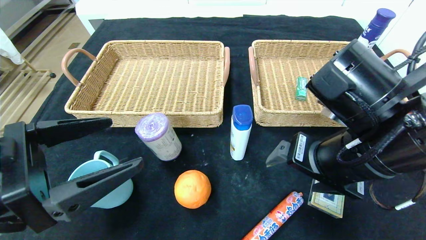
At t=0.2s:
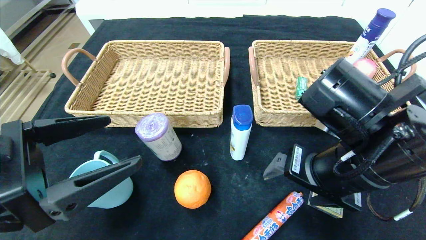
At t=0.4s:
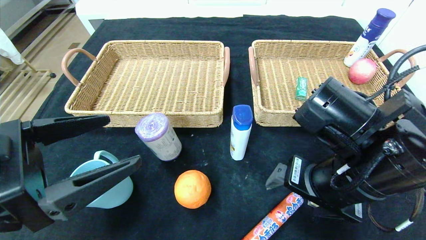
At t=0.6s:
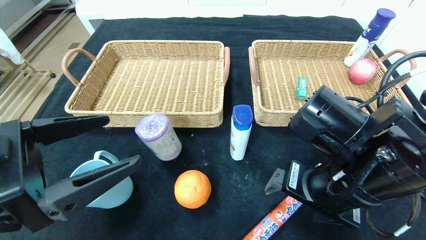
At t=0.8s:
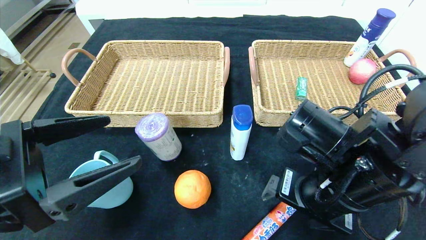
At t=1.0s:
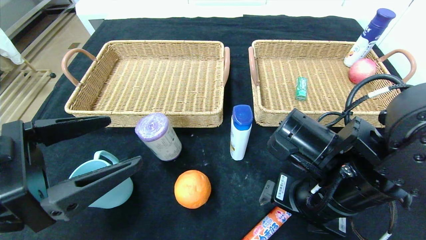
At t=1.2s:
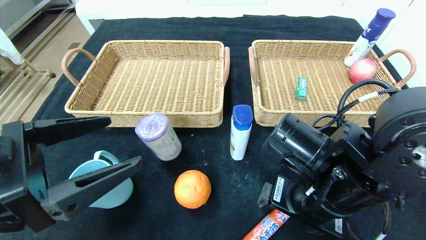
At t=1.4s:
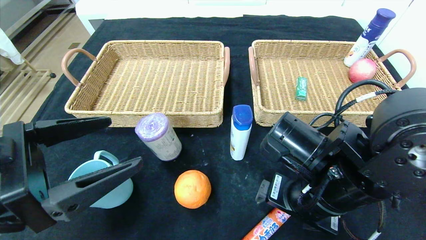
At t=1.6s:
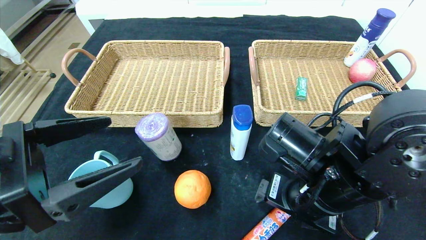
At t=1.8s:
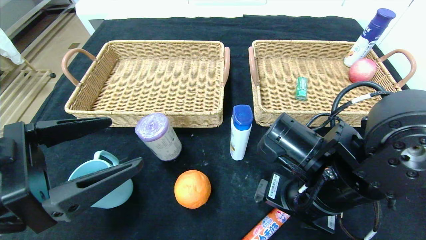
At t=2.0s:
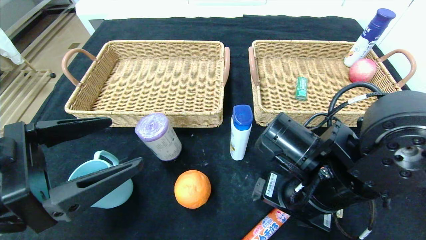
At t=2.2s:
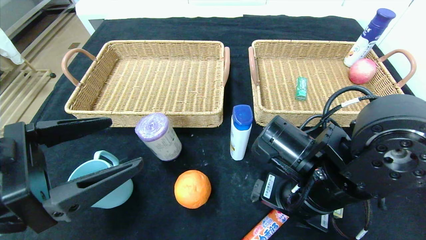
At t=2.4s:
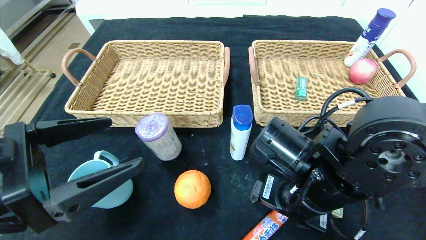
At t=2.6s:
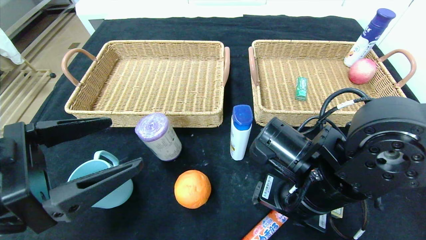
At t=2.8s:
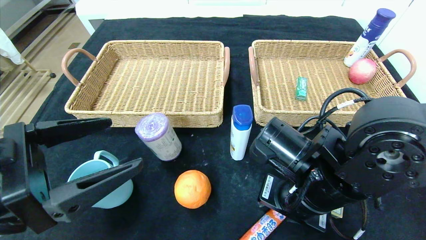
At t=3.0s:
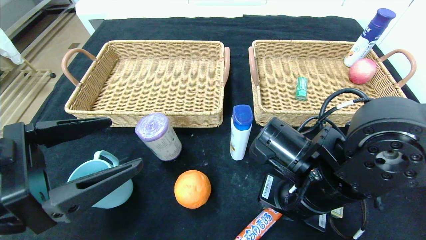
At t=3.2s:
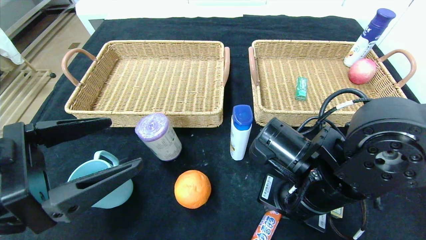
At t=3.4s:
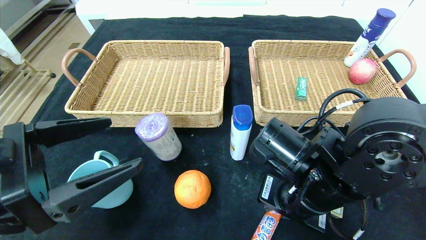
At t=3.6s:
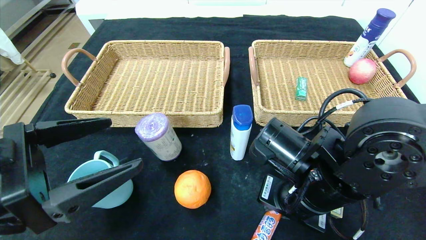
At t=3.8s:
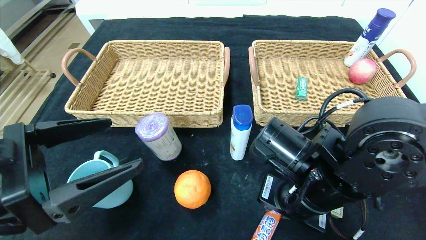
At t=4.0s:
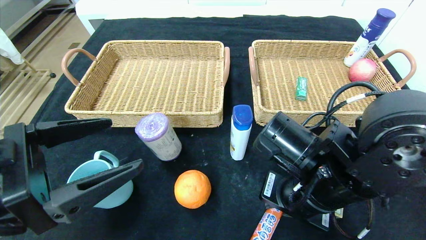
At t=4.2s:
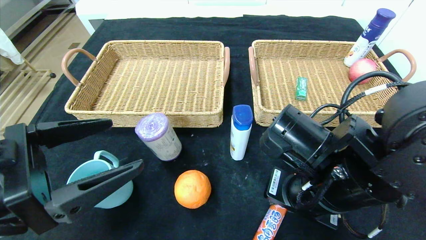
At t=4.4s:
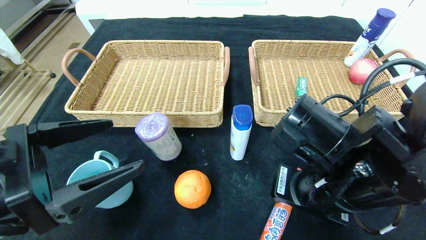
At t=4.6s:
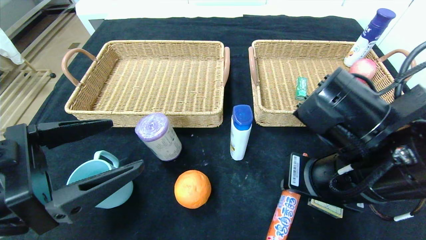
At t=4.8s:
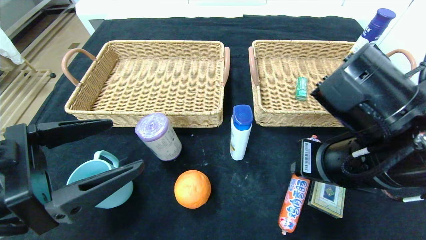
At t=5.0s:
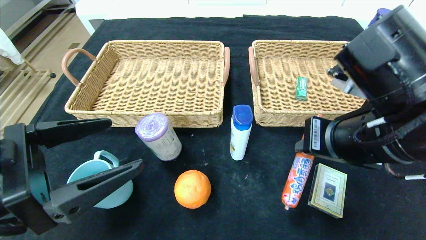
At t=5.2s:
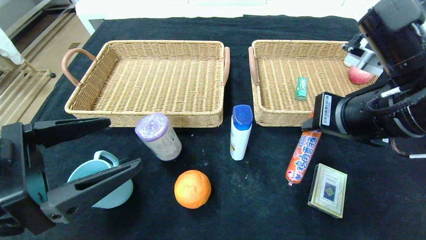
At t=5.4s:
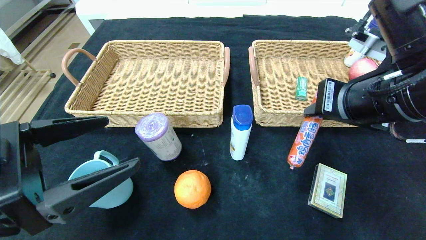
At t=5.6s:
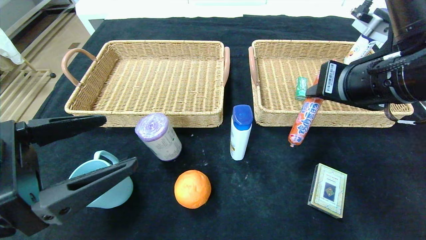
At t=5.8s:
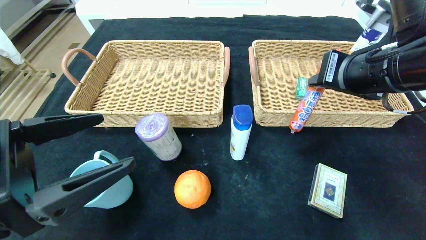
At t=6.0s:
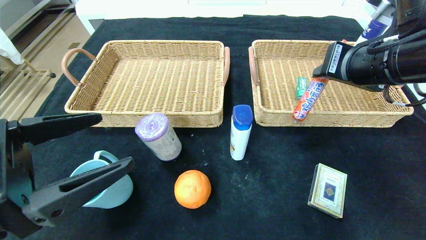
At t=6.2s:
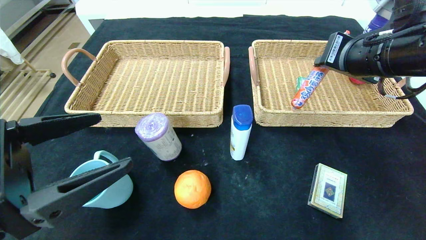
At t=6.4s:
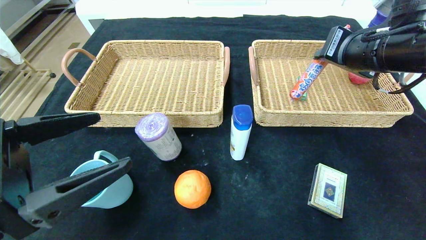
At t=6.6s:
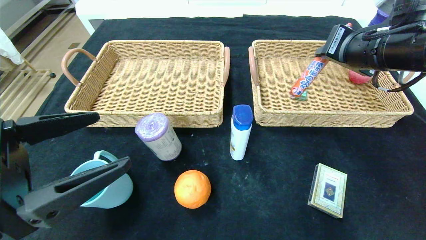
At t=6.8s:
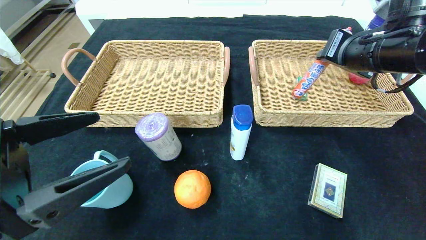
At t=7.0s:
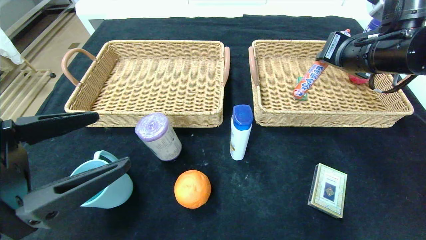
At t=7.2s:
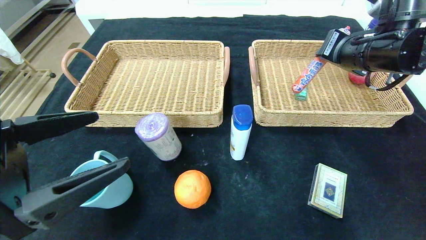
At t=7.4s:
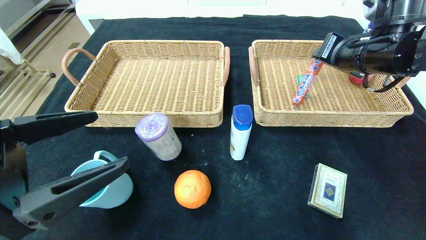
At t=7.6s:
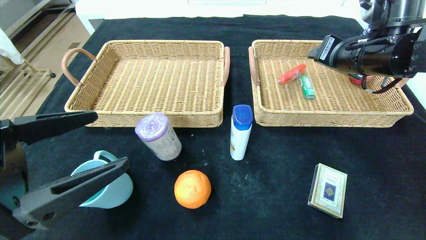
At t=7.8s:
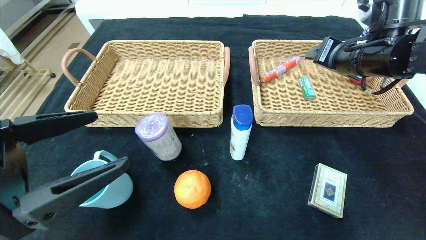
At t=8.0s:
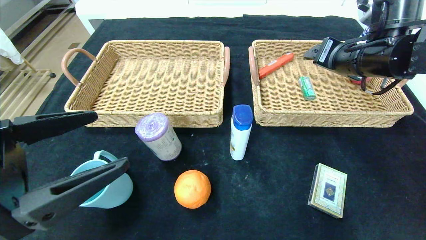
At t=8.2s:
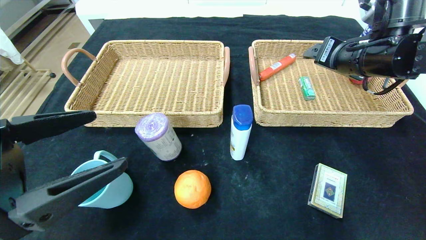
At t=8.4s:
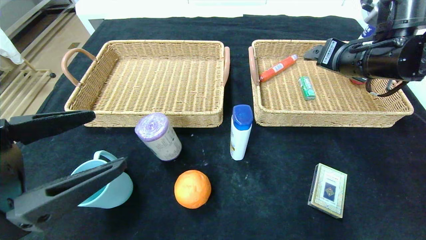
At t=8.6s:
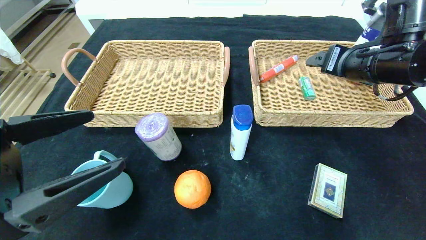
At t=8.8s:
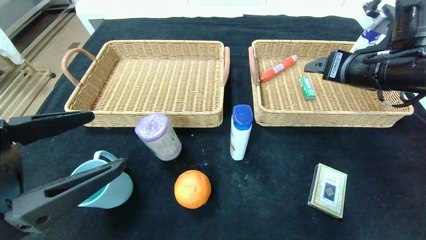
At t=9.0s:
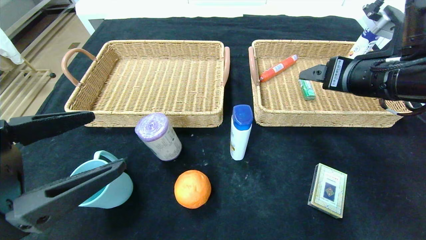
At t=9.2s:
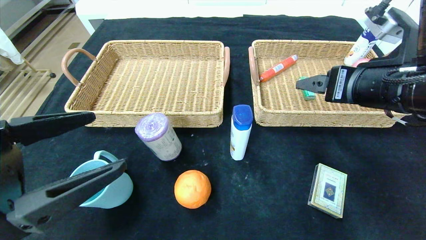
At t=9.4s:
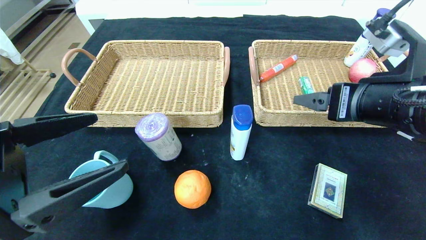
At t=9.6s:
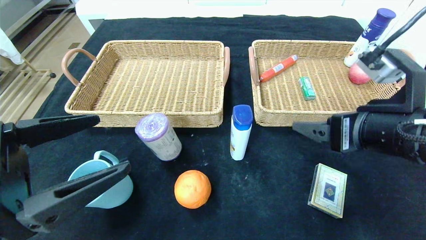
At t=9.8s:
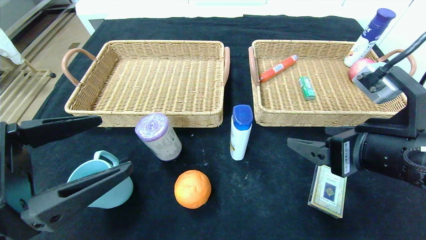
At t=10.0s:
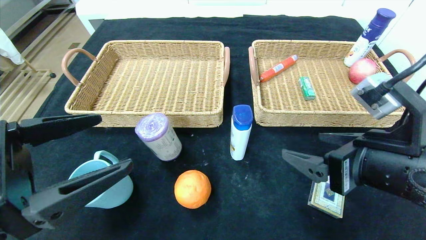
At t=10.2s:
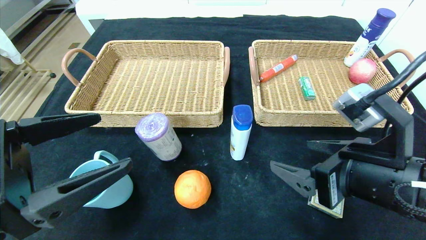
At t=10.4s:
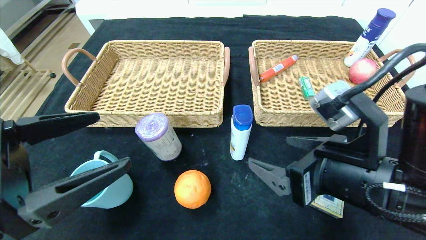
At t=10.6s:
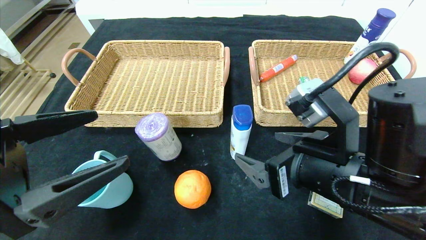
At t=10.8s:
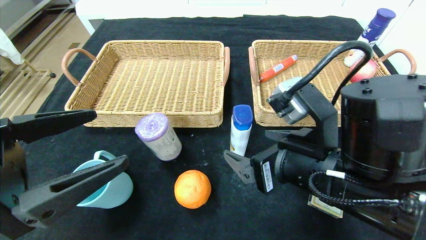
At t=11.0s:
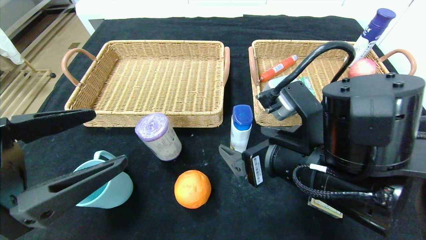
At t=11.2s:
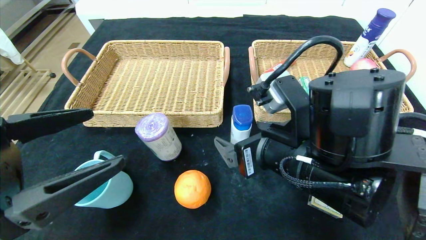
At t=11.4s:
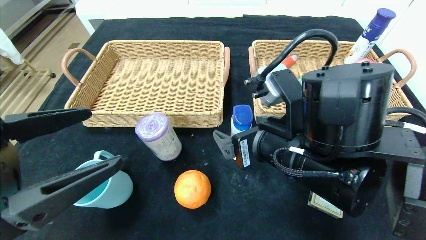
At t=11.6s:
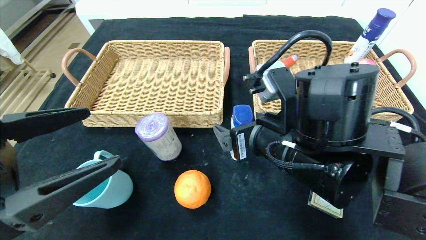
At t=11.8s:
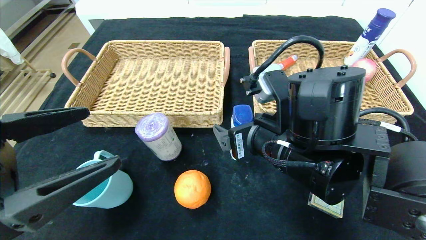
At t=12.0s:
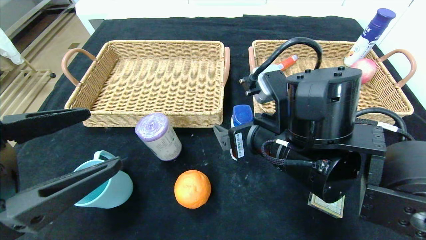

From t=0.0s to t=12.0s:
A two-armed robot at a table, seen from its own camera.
Step, from t=0.0s to t=7.8s: Grasp the sausage and put it in the right basket.
From t=0.0s to t=1.6s: The right gripper is displaced downward by approximately 5 cm.
From t=1.6s to t=3.0s: The right gripper closes its fingers.
From t=3.0s to t=4.4s: The right gripper changes place by about 5 cm.
From t=4.4s to t=6.0s: The right gripper travels upward, to the right and forward by about 15 cm.
From t=6.0s to t=7.6s: The right gripper goes some 10 cm forward, and opens its fingers.
From t=7.6s to t=9.0s: The right gripper goes some 10 cm backward, and opens.
From t=9.0s to t=10.4s: The right gripper travels backward, downward and to the left by roughly 15 cm.
From t=10.4s to t=12.0s: The right gripper moves to the left and forward, some 10 cm.

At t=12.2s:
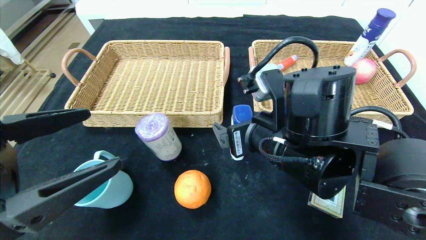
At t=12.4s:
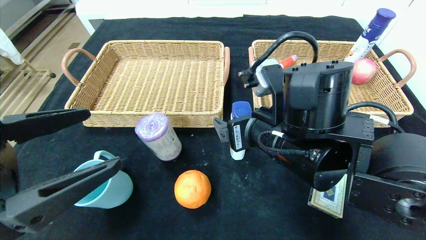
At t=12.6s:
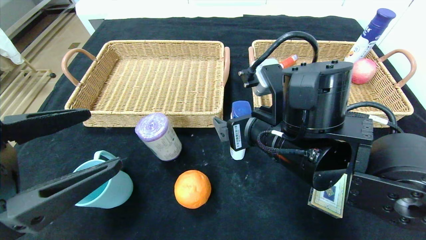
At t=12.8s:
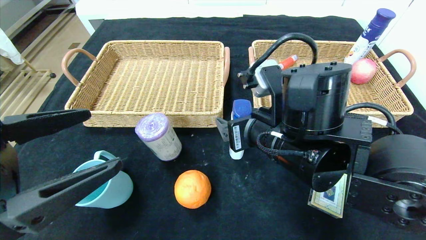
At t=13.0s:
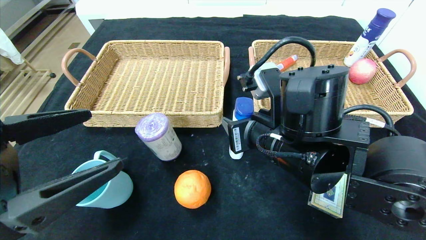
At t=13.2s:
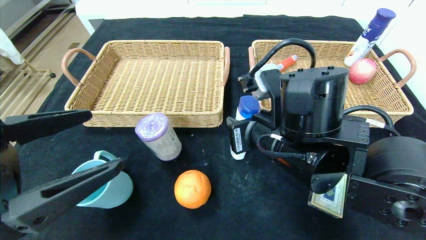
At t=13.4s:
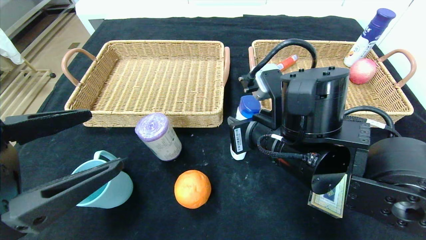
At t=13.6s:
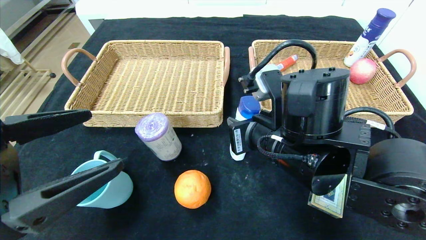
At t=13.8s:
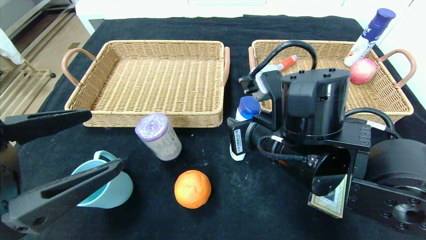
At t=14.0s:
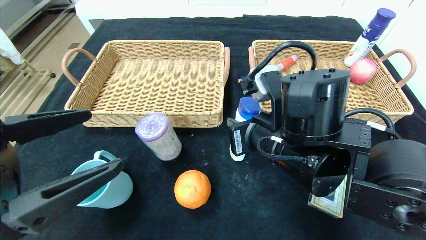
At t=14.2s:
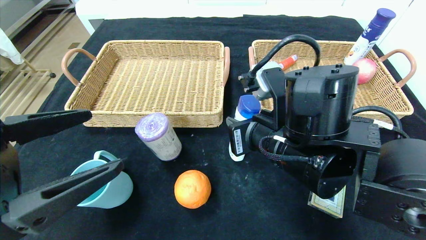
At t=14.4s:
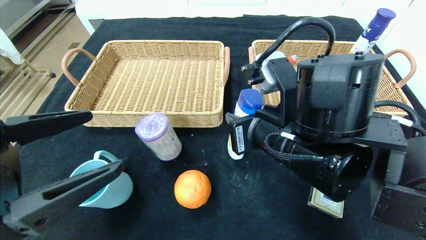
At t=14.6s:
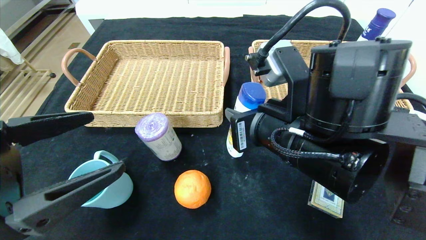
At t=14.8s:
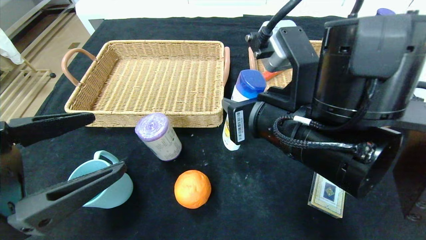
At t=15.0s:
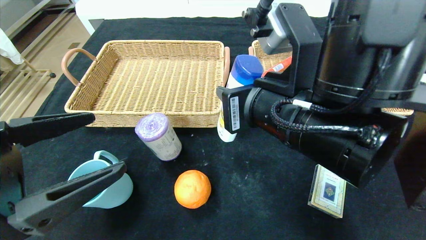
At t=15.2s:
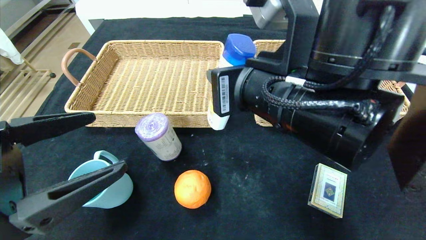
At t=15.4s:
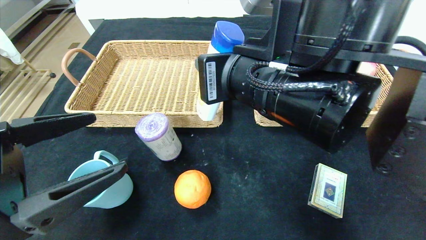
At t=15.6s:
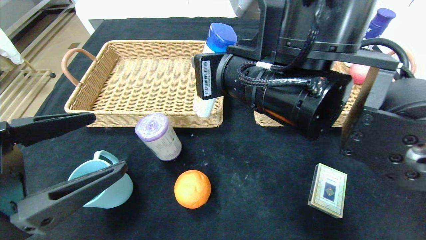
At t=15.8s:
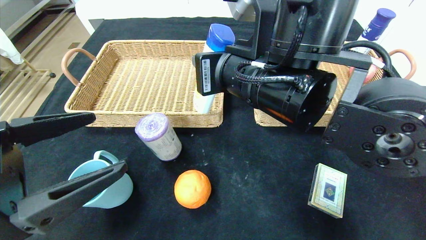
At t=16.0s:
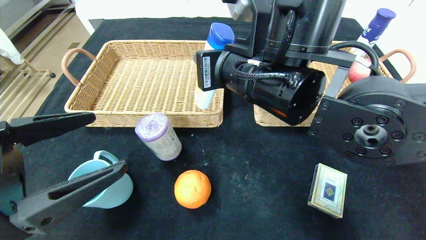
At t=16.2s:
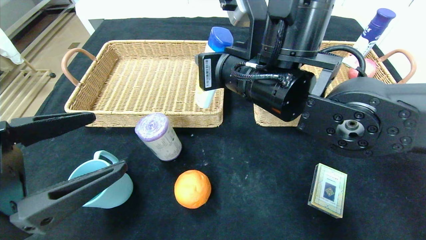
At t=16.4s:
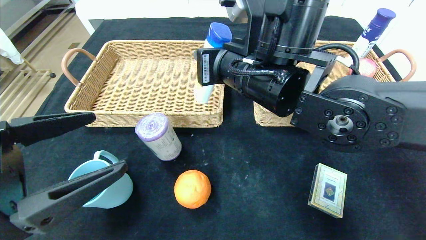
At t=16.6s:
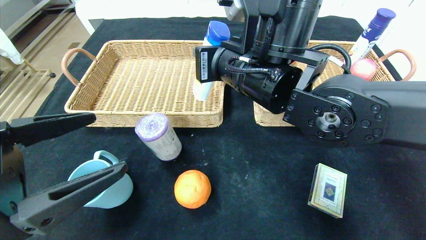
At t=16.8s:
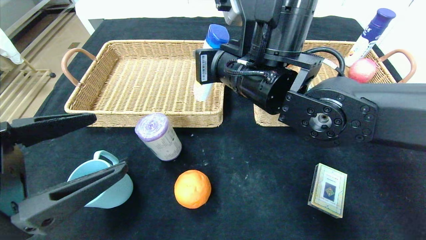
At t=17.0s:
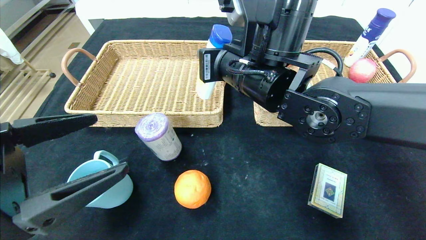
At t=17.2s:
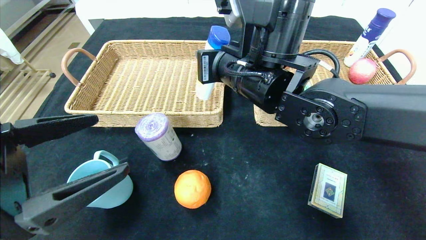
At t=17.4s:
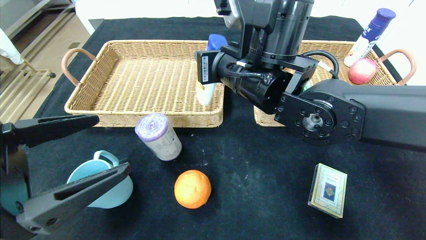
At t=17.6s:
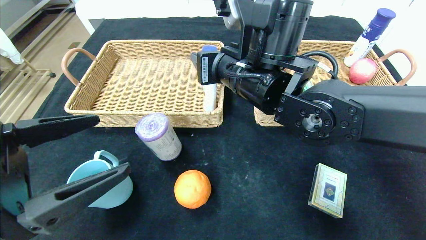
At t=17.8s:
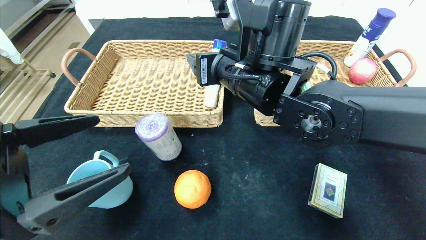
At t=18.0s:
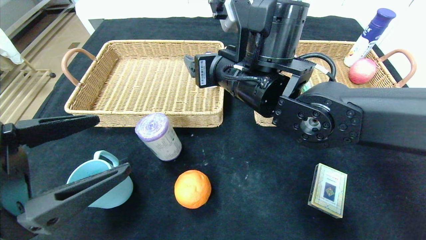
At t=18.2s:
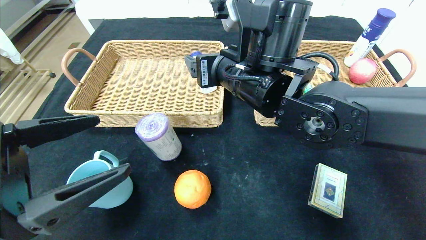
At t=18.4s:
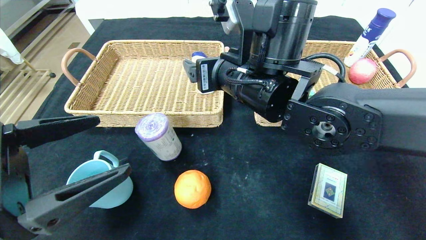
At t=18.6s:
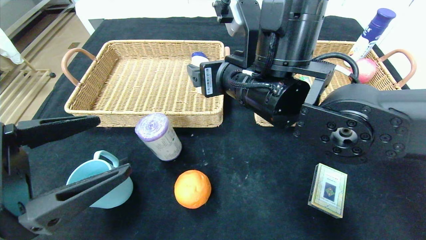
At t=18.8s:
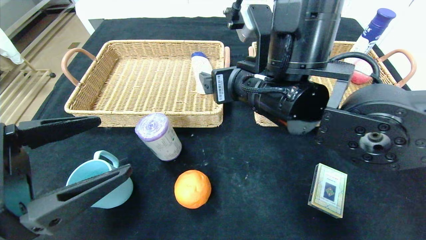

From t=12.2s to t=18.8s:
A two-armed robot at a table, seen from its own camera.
From t=12.2s to t=13.8s: The right gripper closes.
From t=13.8s to t=15.4s: The right gripper is displaced upward by about 10 cm.
From t=15.4s to t=17.2s: The right gripper moves forward, about 10 cm.
From t=17.2s to t=18.8s: The right gripper shifts by approximately 5 cm, and opens its fingers.
